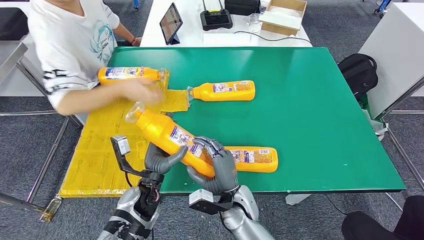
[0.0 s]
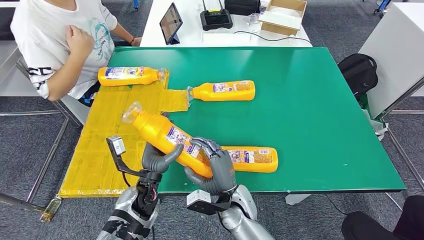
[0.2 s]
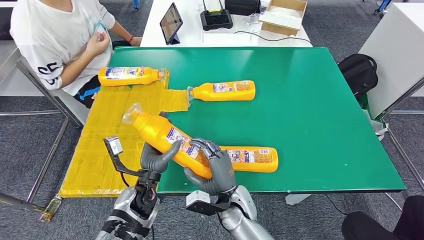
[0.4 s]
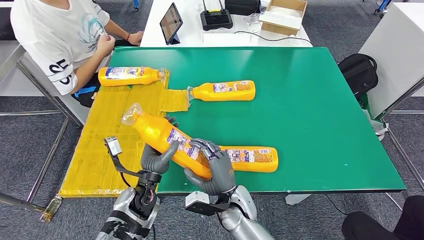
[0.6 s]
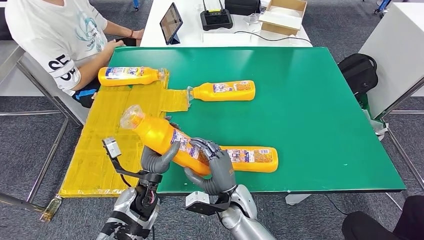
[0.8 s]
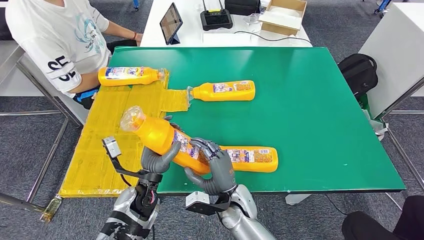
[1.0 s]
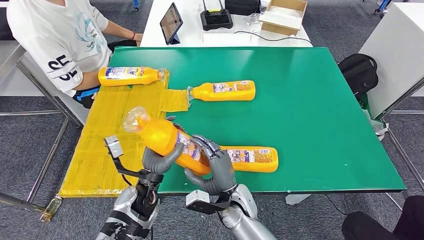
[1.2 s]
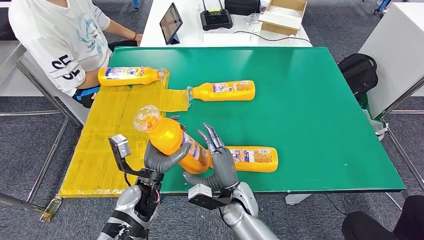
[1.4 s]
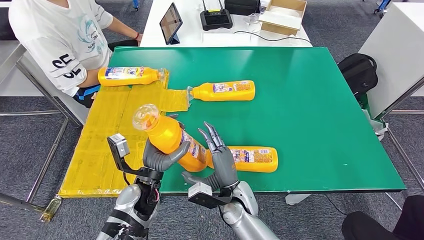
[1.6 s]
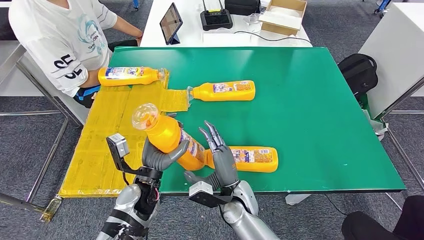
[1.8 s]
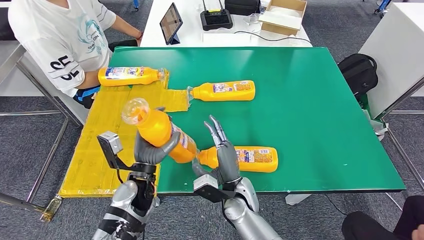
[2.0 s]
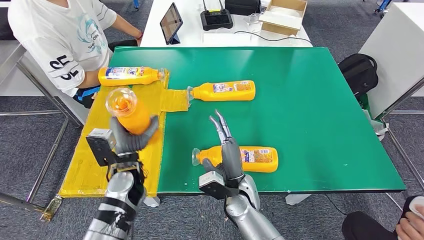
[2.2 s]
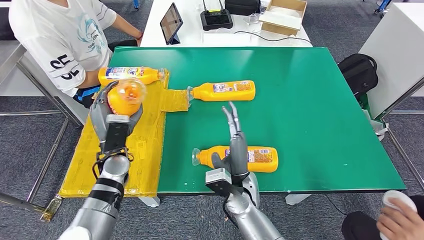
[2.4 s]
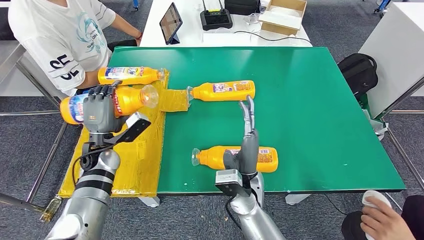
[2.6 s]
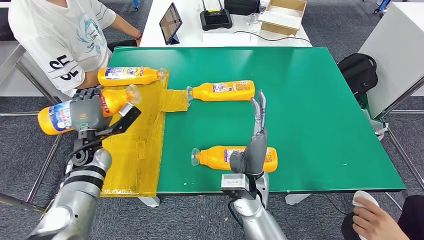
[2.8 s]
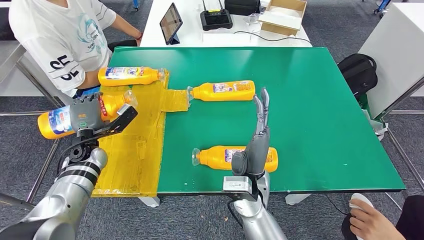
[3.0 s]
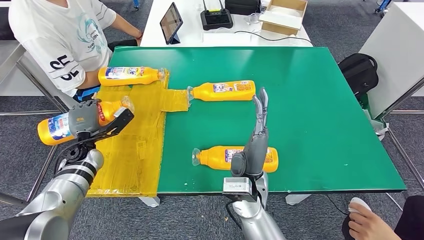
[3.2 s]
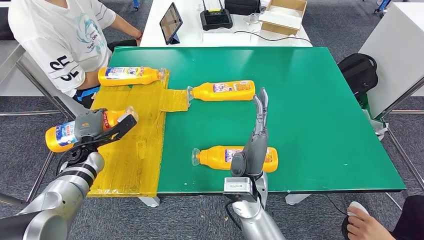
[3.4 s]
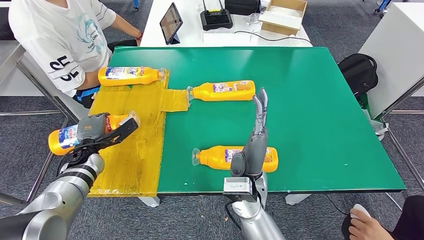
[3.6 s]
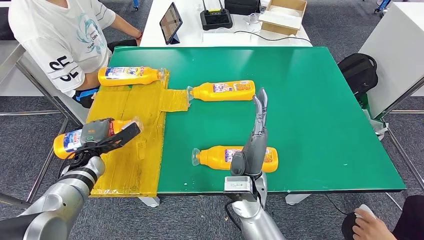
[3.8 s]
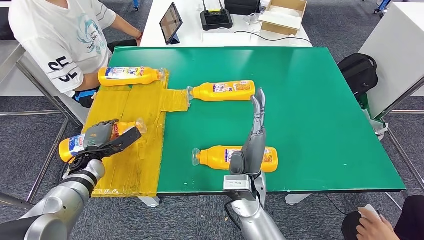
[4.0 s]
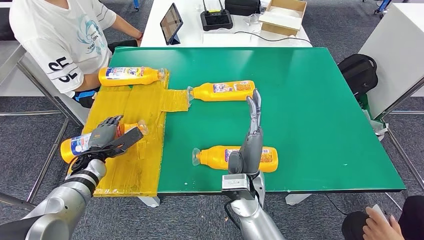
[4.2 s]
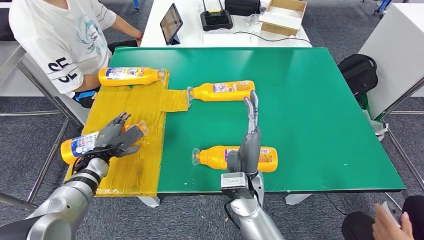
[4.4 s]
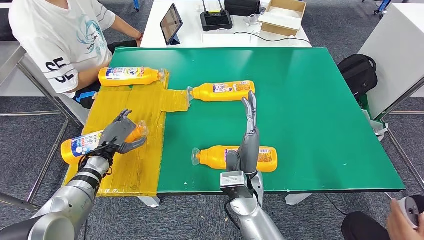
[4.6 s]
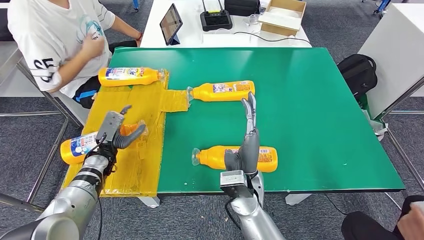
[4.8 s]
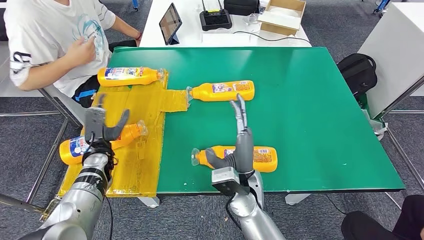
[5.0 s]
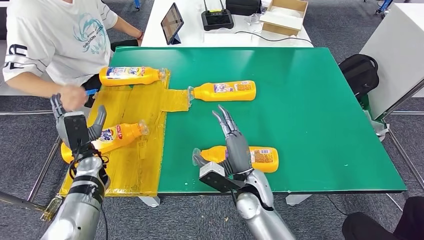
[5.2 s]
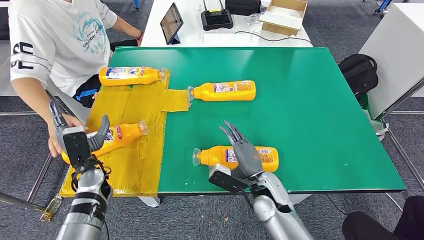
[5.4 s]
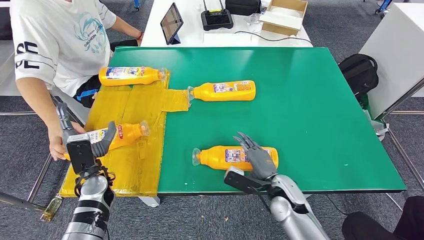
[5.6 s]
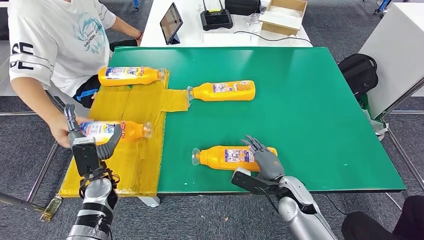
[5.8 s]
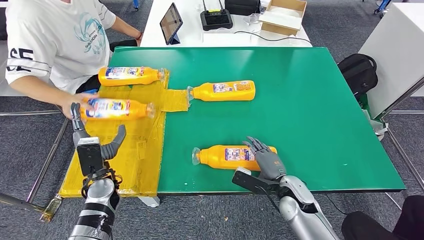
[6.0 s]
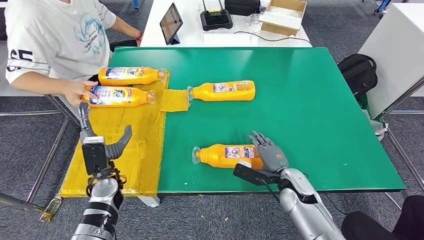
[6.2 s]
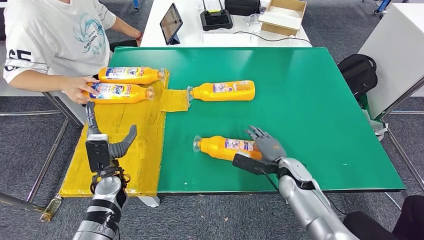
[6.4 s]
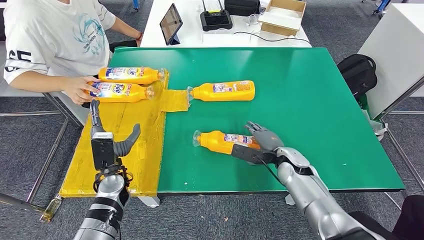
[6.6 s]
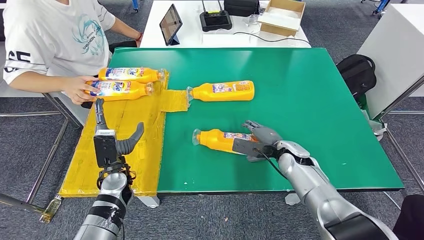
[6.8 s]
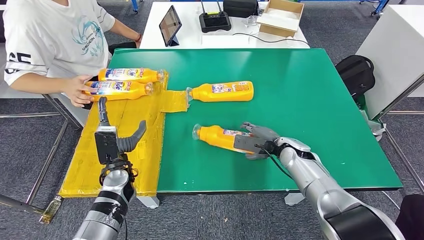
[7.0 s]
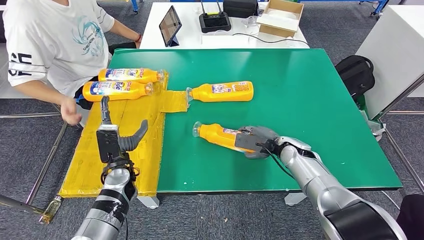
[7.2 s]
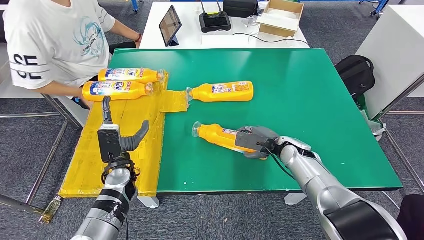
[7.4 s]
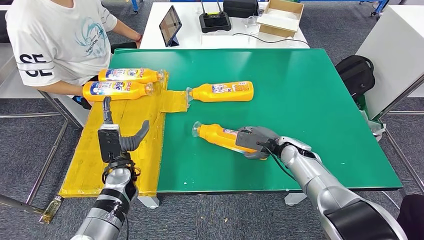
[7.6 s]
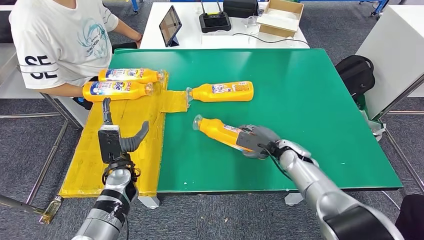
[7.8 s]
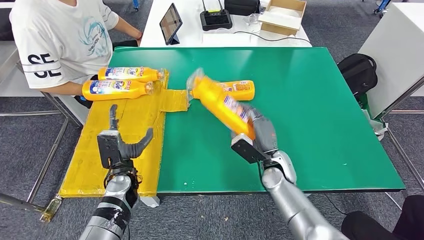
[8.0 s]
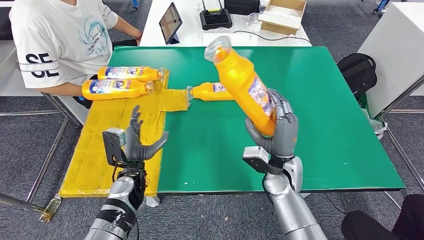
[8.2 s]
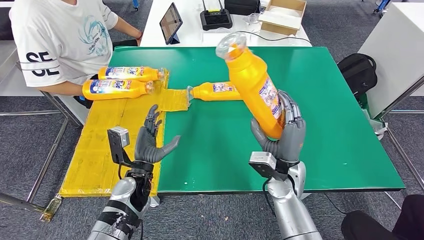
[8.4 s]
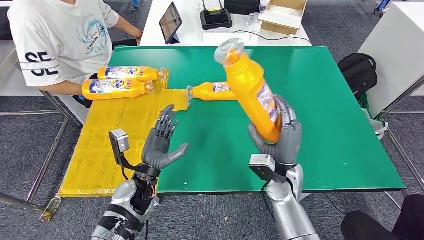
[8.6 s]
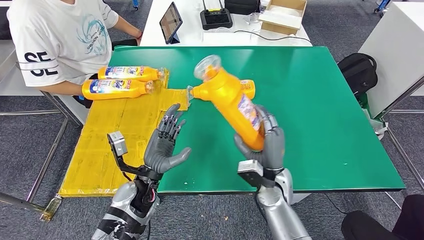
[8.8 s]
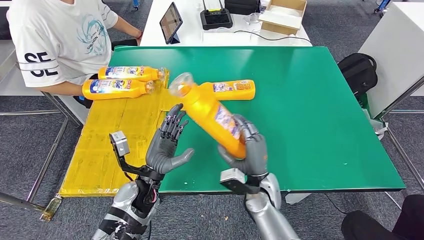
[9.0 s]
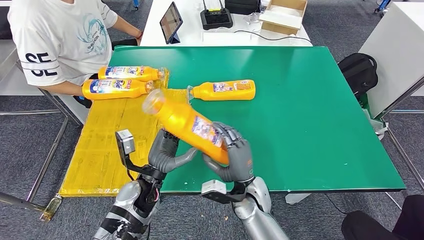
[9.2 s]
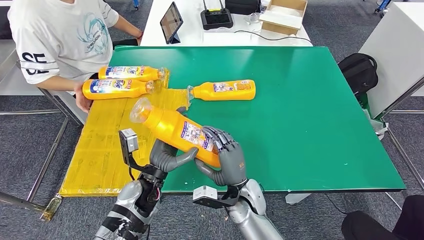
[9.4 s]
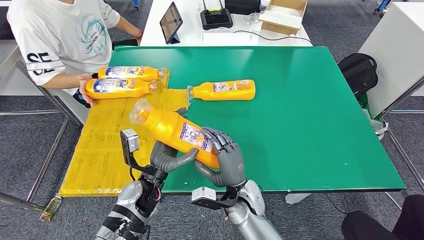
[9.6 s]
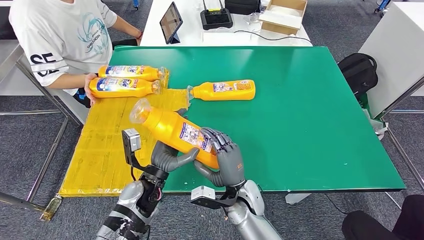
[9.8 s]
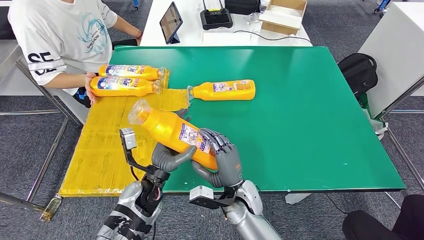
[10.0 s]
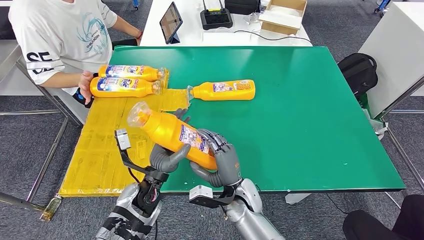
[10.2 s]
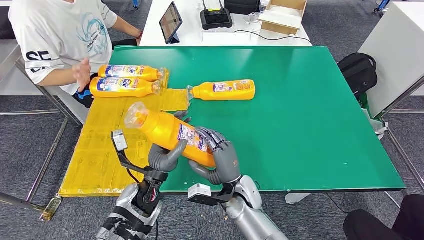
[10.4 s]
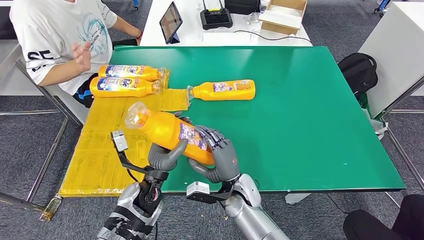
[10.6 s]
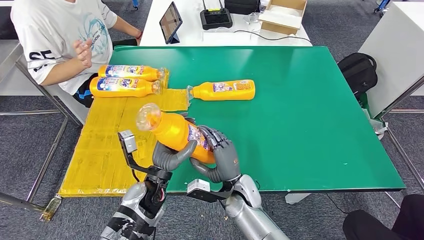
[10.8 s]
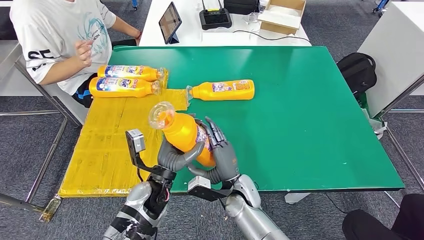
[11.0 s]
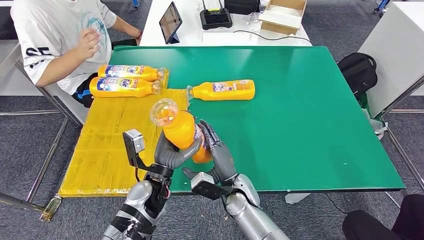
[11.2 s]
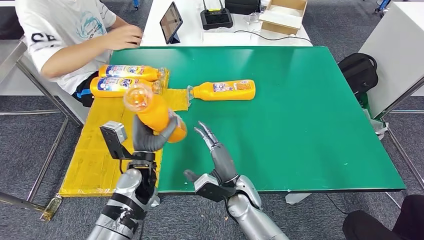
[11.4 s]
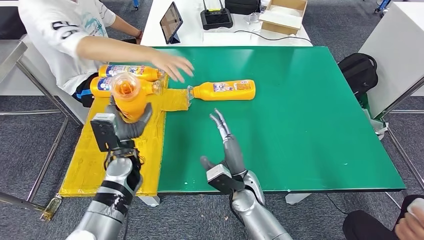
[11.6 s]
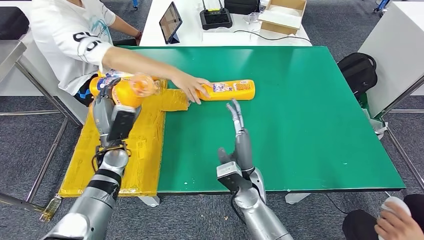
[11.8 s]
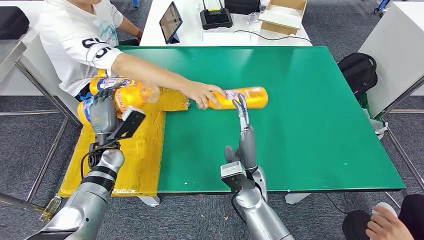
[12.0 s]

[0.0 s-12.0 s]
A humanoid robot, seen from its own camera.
Step, 0.0 to 4.8 s: Flip the bottle to face forward.
Step, 5.4 to 8.4 s: Pick up the bottle from the table.
0.0 to 1.6 s: The hands make only small movements.
3.0 to 4.4 s: The left hand moves downward, approximately 5 cm.
9.0 to 10.4 s: The right hand travels to the left by roughly 5 cm.

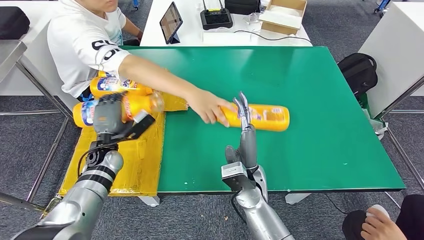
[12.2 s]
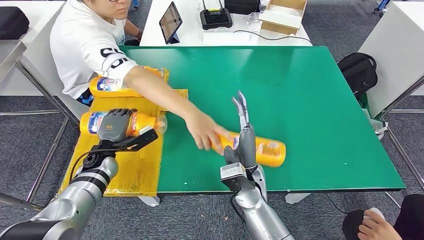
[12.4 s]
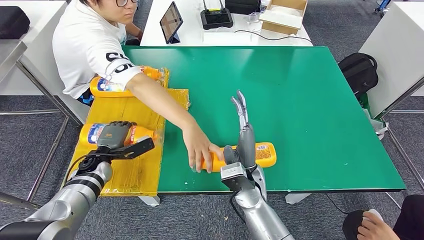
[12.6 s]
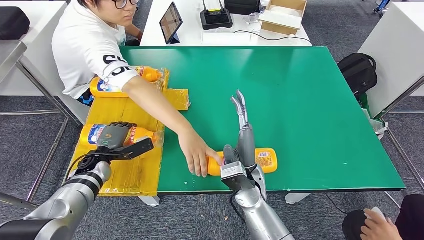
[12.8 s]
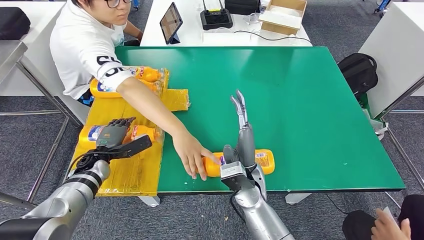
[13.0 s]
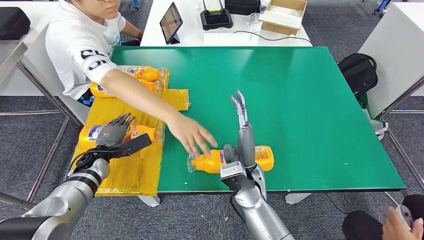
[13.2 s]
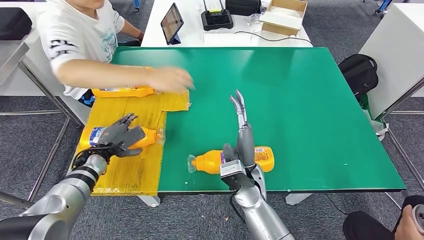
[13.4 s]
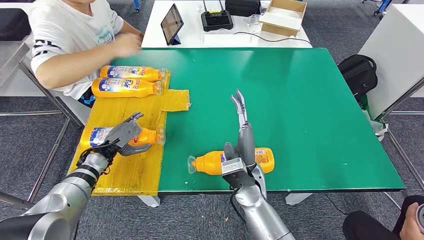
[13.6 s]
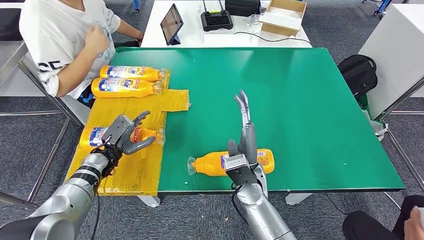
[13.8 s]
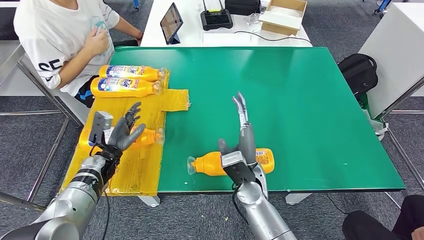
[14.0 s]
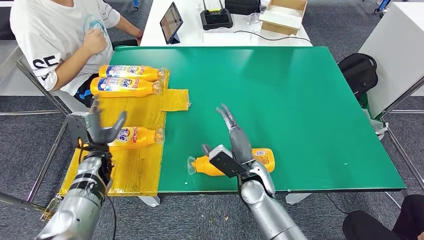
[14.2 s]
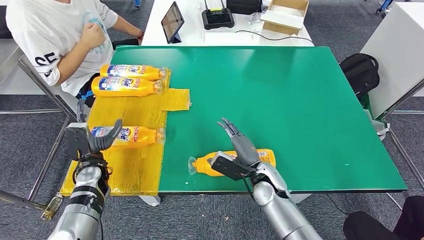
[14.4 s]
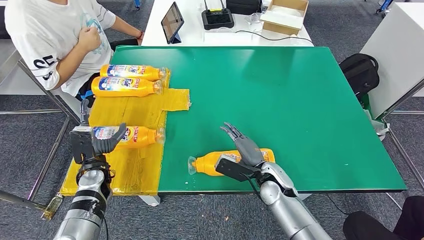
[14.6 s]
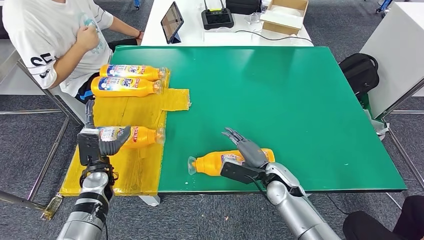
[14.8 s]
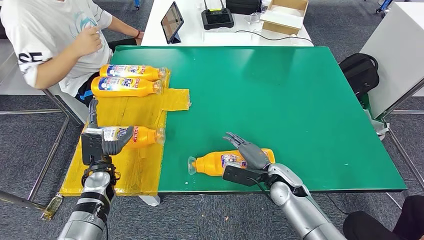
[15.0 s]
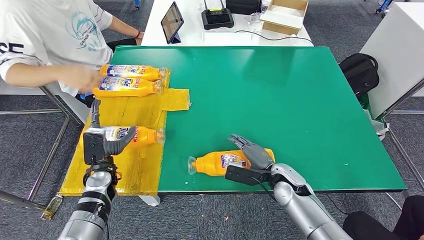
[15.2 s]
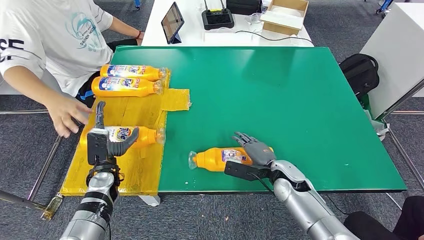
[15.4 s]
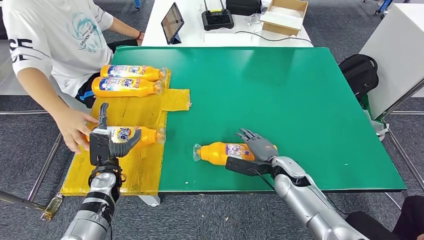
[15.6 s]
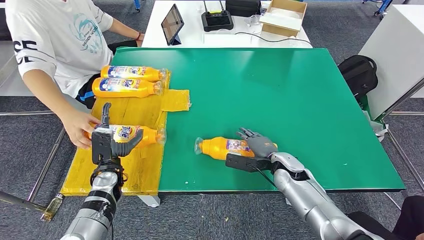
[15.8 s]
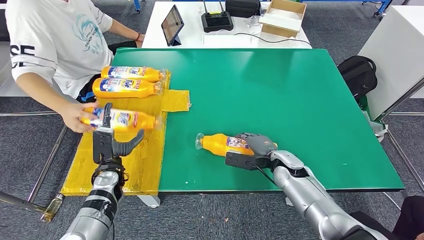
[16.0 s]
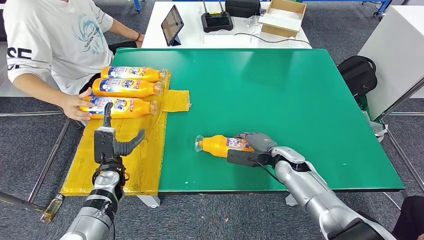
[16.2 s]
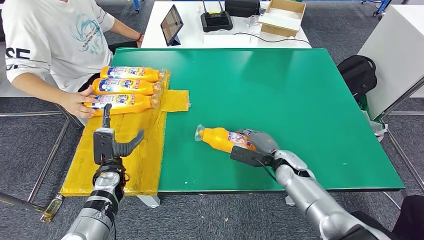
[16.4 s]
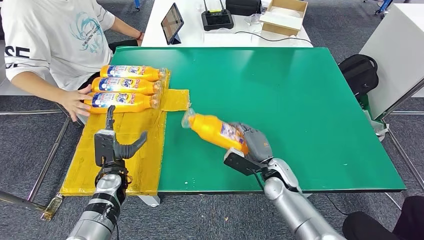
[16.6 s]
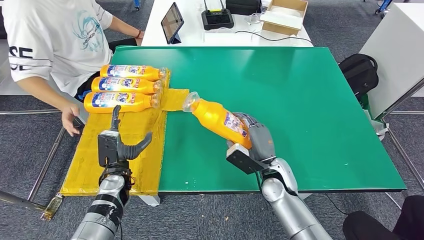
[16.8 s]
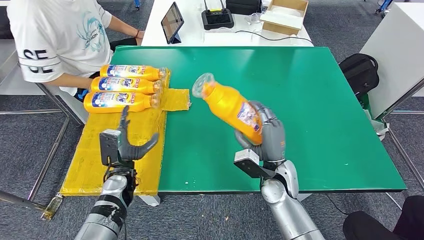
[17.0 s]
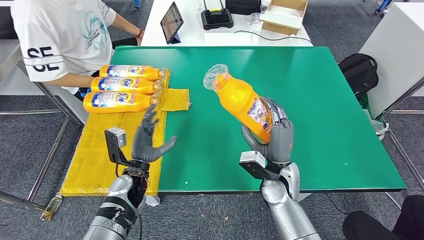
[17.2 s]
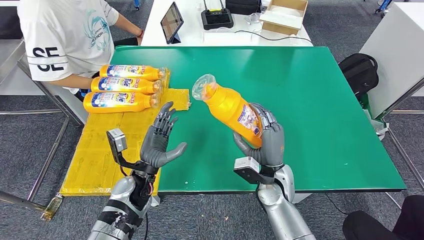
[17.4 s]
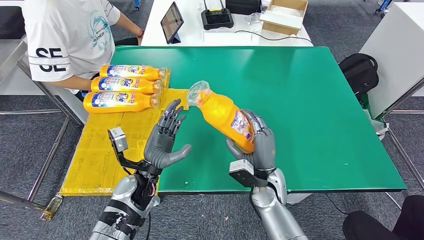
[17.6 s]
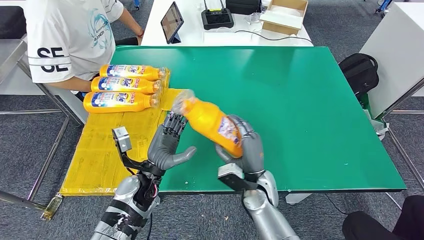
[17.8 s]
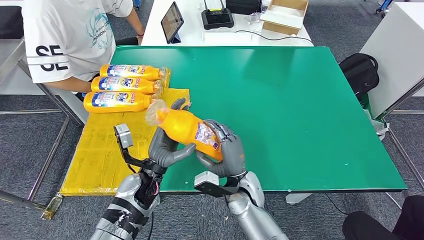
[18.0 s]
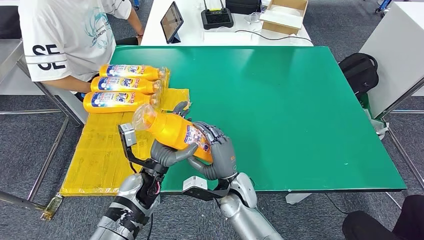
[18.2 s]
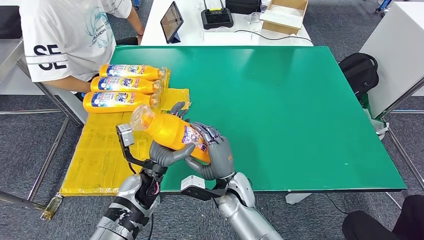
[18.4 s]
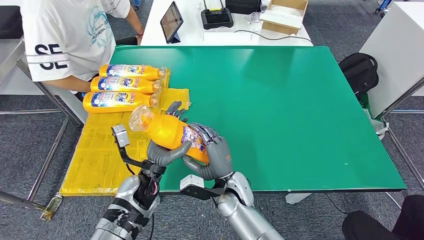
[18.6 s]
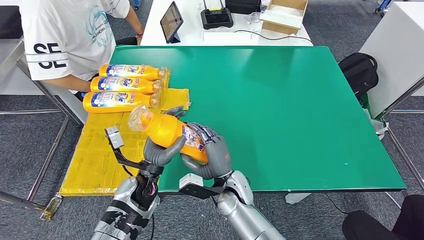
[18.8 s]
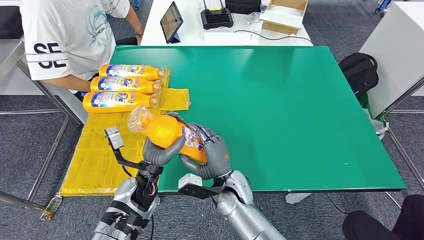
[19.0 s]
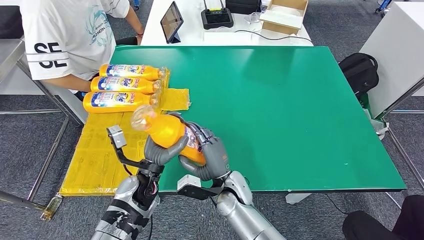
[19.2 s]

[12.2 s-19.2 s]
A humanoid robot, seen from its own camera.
Step, 12.2 to 14.2 s: Flip the bottle to face forward.
Step, 14.6 to 17.4 s: Pick up the bottle from the table.
17.8 to 19.2 s: The right hand moves to the left, some 5 cm.
